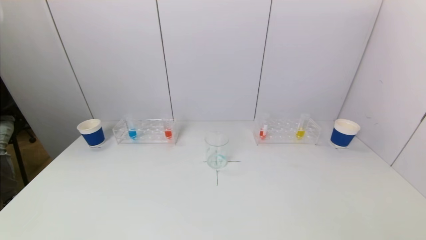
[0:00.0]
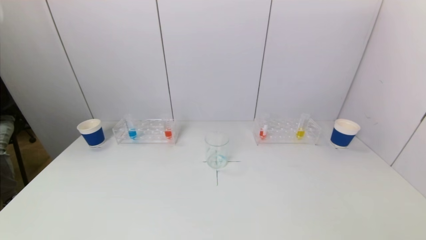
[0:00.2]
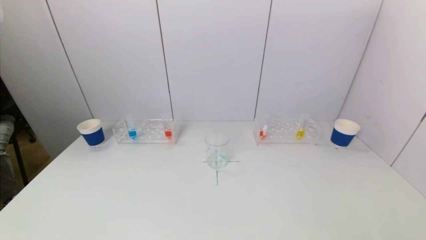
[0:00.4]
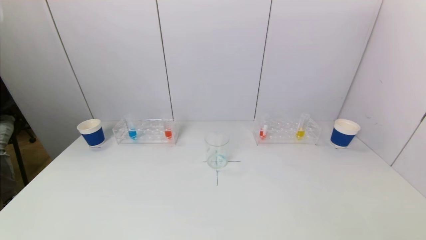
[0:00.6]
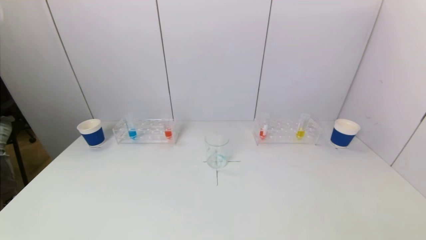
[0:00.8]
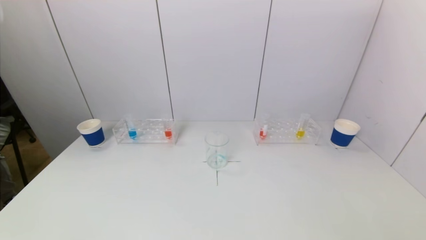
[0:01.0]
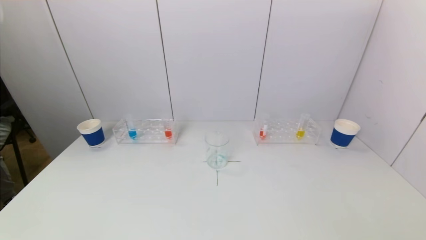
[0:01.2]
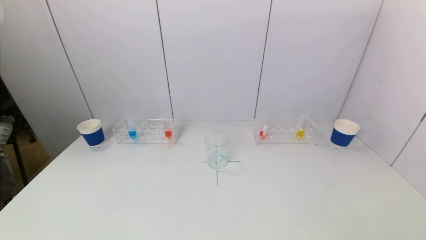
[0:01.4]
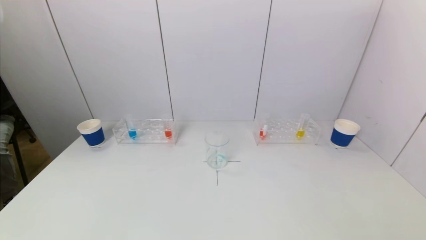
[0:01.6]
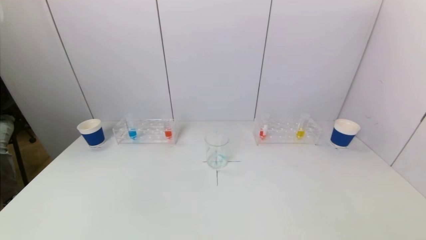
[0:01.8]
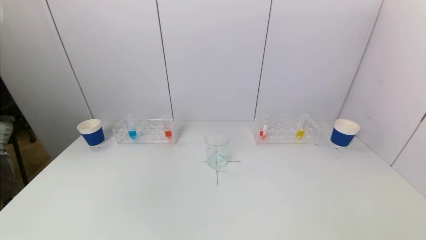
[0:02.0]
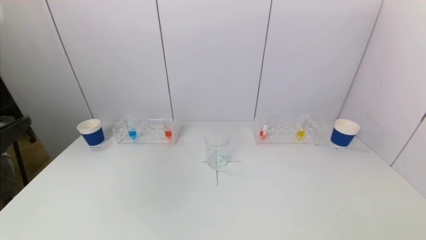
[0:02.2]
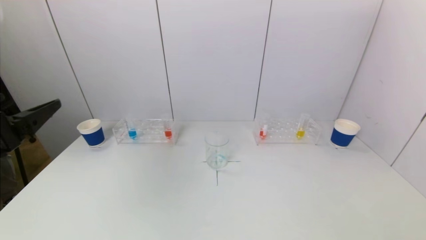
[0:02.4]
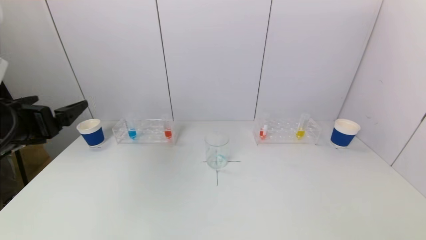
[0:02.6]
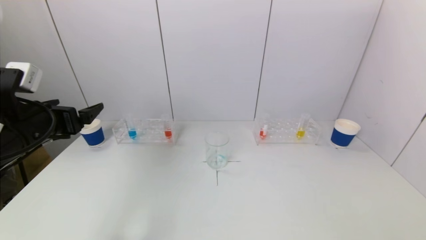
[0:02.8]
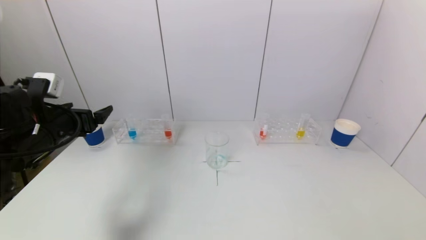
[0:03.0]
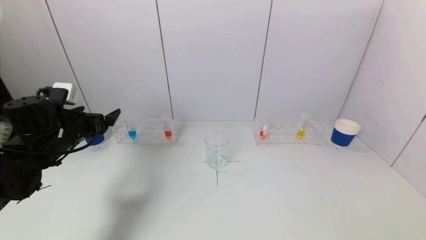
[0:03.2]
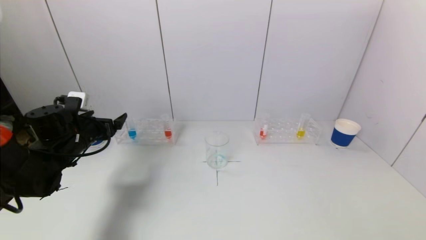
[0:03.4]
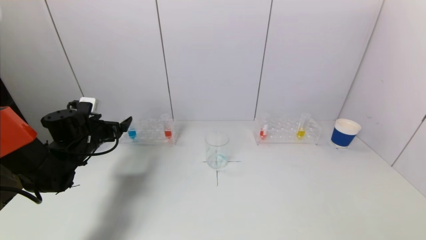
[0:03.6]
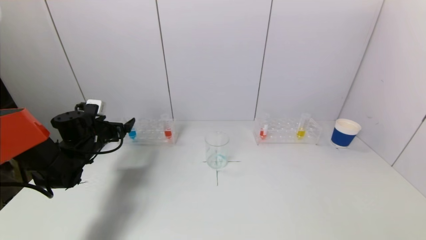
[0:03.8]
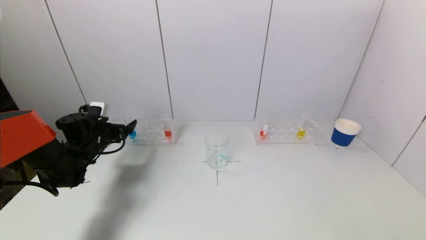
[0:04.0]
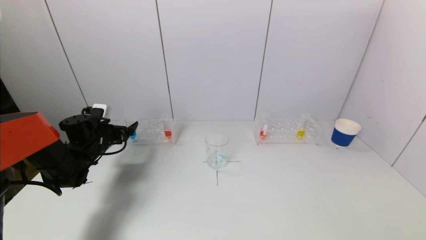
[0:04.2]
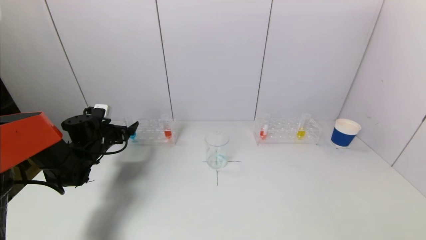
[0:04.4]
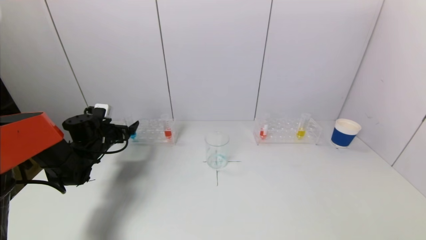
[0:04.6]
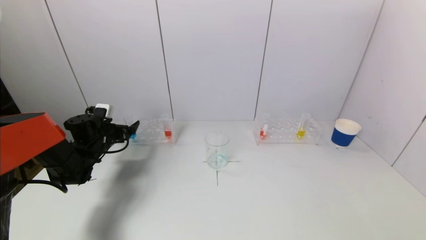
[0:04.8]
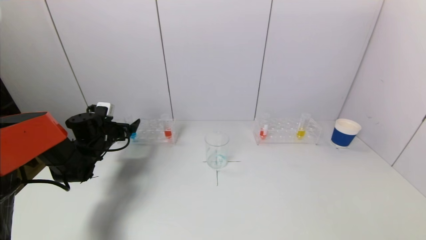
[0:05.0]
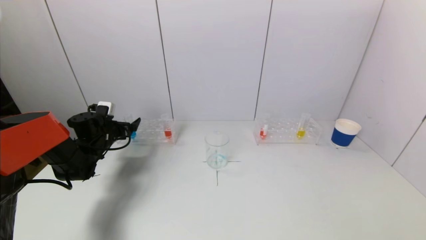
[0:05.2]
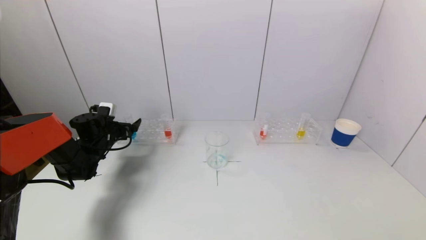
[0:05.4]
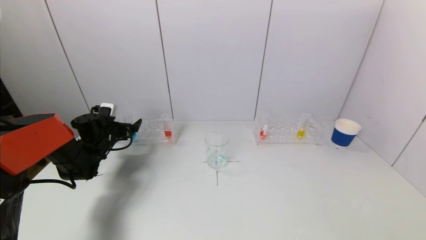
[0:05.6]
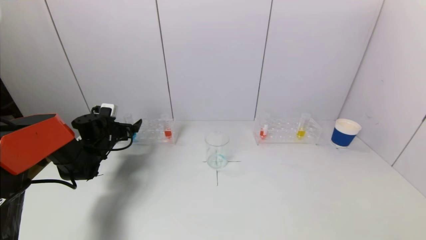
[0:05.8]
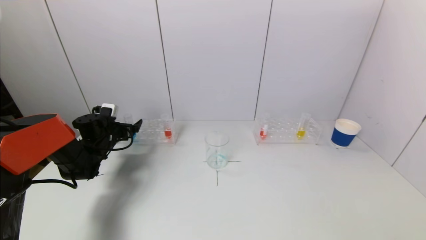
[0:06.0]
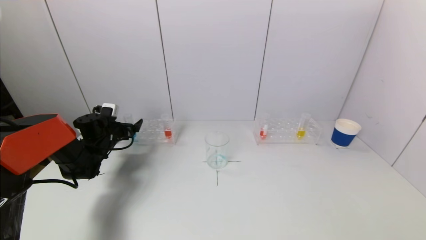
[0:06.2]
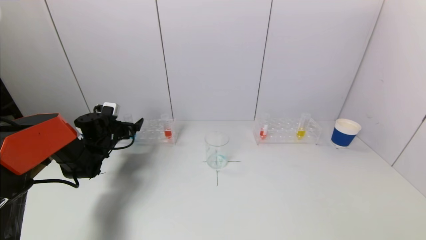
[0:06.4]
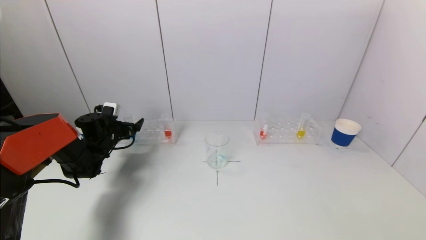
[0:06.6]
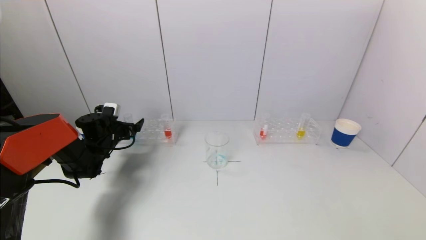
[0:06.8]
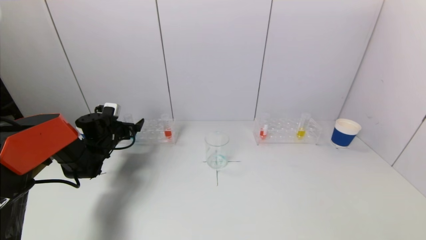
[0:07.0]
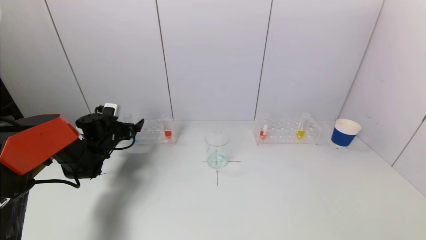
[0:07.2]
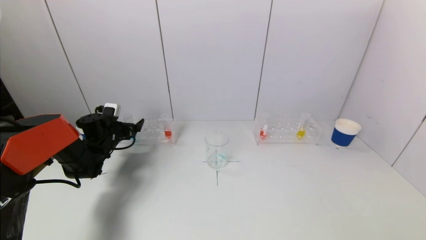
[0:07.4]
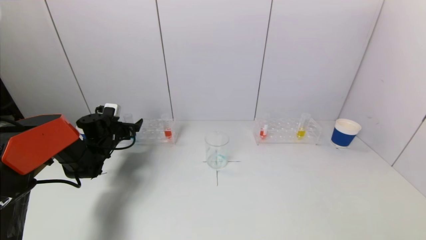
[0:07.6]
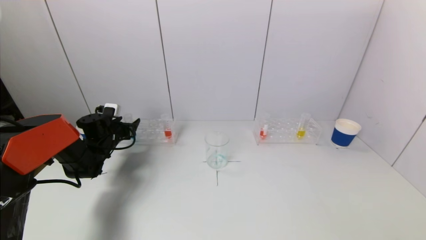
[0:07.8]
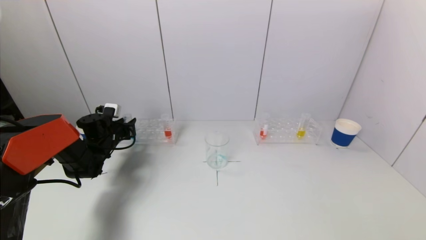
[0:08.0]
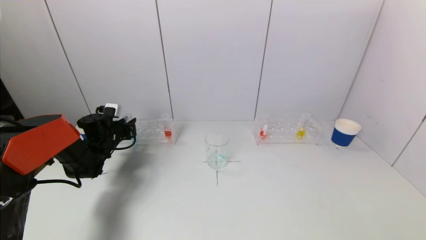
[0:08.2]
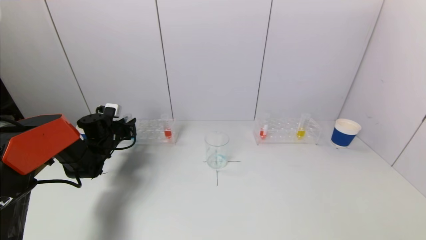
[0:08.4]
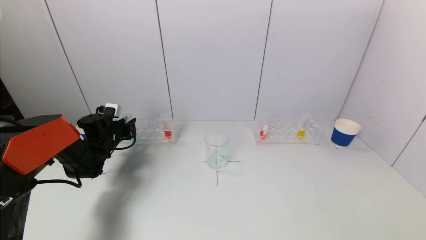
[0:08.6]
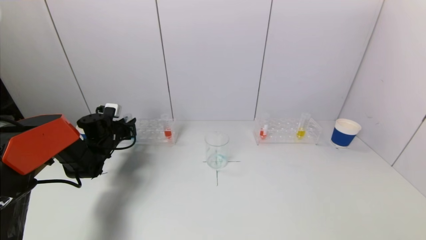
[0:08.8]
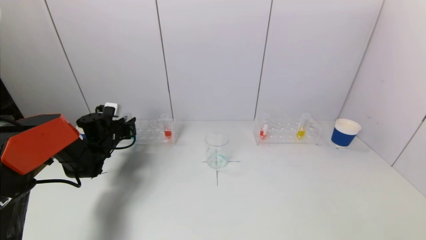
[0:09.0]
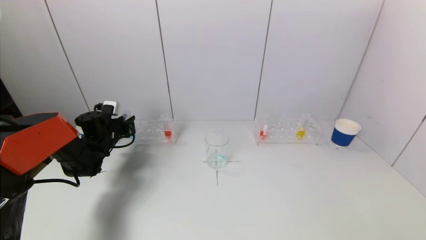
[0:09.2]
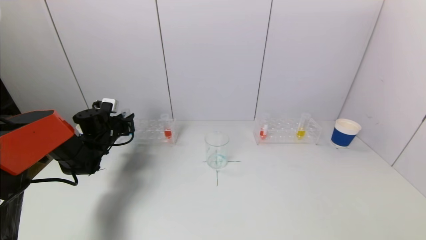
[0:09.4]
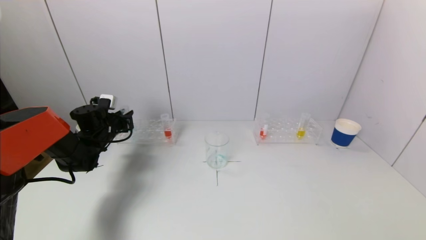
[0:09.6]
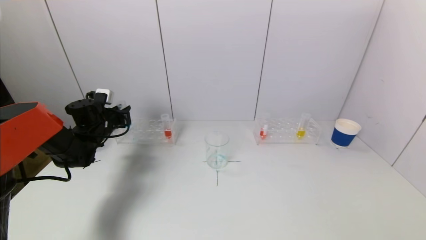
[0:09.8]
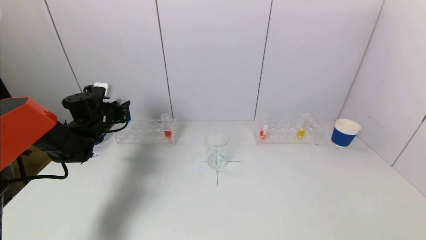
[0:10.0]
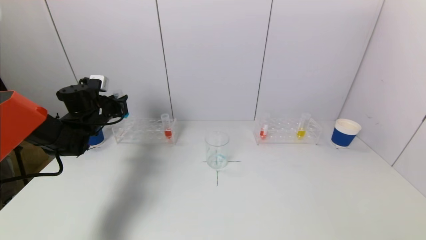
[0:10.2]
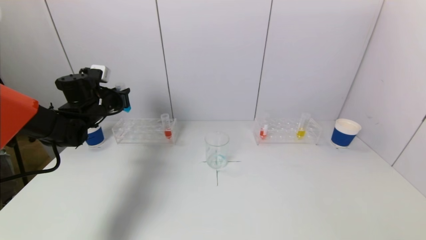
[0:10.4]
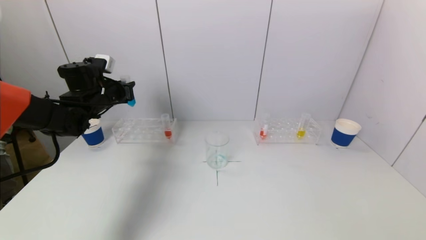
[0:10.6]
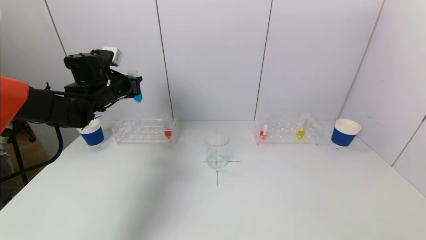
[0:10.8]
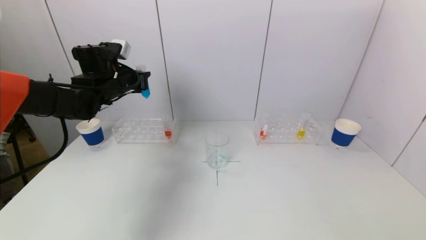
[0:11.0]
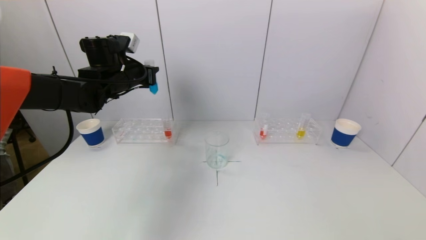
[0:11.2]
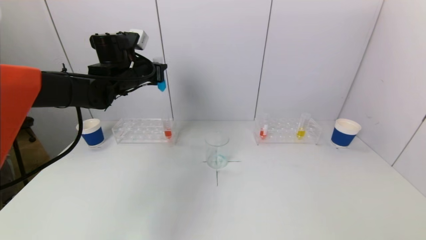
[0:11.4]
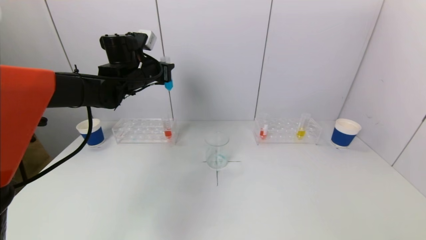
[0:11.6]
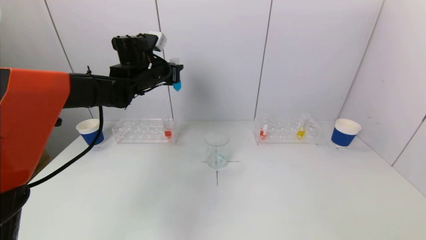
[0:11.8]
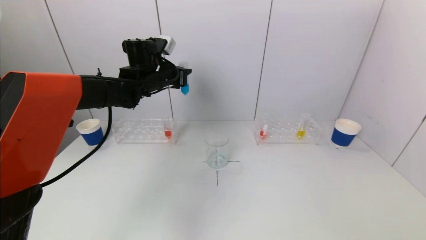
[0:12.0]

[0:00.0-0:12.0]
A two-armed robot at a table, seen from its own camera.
Task of the whole recording: pick up a test tube with pigment on left test tube rack and a test tube with pigment on right test tube rack by grippers and pour them into the beaker.
Step, 0:00.0 to 0:08.6: Grasp the blue reagent with the left gripper.
0:01.6 to 0:03.0: The left gripper travels forward by roughly 30 cm.
0:03.0 to 0:04.4: The left gripper shifts approximately 15 cm forward and downward.
0:04.4 to 0:06.0: There are only small adjustments of the grippers.
0:06.0 to 0:07.6: Neither gripper changes place.
0:09.0 to 0:10.4: The left gripper travels upward by roughly 10 cm.
0:10.4 to 0:12.0: The left gripper heads to the right and upward, covering approximately 15 cm.

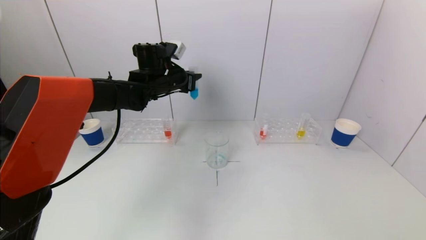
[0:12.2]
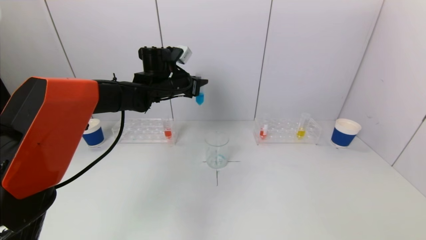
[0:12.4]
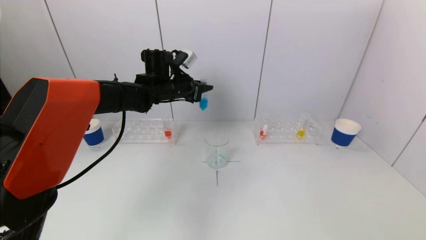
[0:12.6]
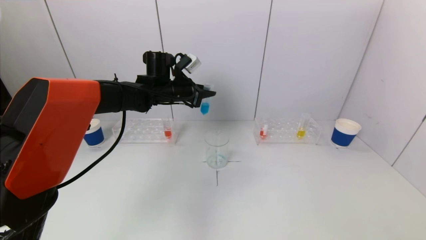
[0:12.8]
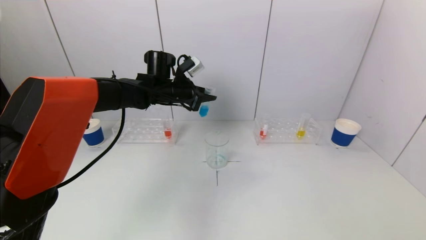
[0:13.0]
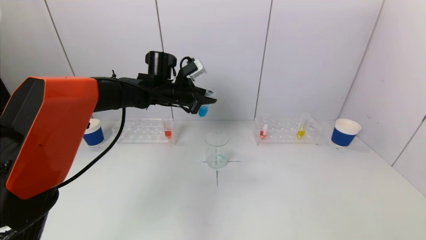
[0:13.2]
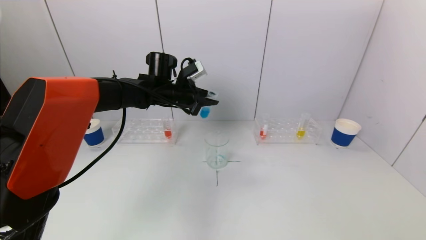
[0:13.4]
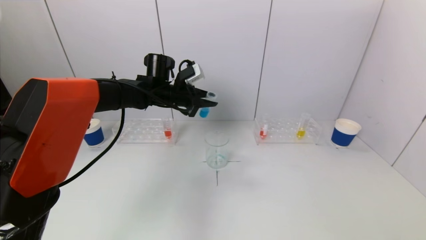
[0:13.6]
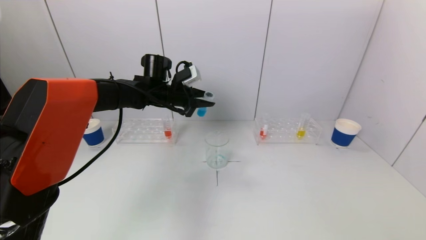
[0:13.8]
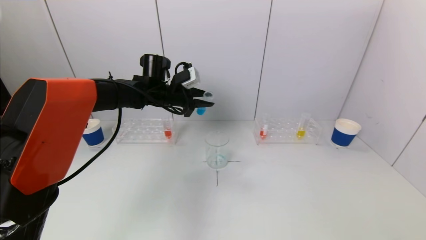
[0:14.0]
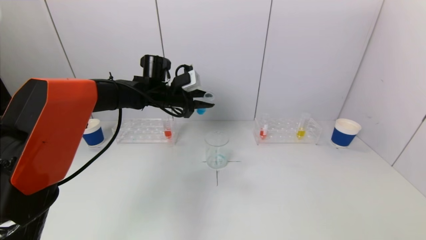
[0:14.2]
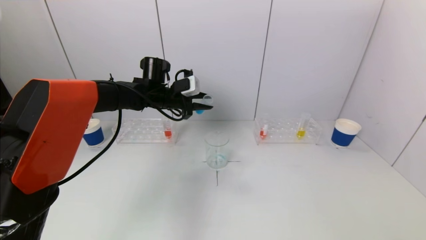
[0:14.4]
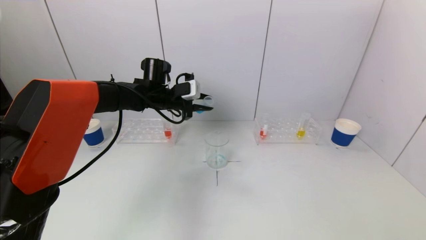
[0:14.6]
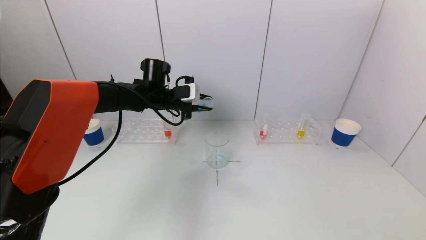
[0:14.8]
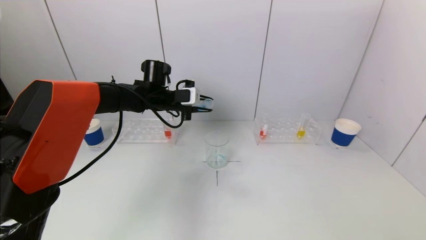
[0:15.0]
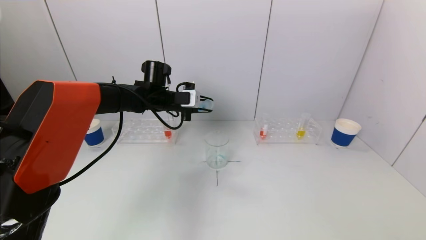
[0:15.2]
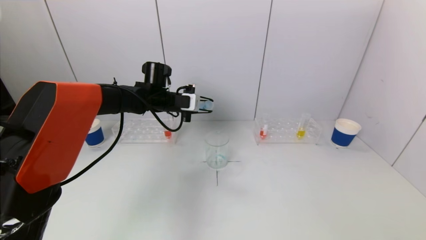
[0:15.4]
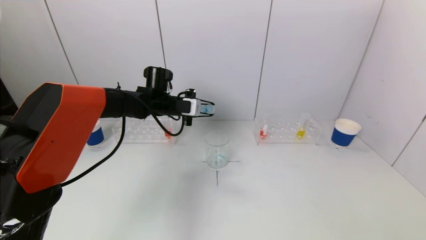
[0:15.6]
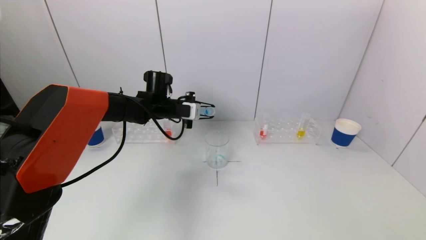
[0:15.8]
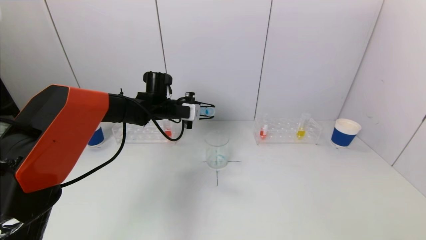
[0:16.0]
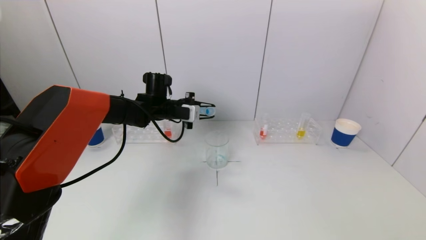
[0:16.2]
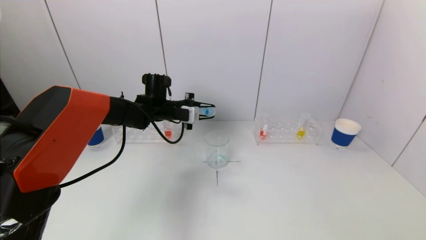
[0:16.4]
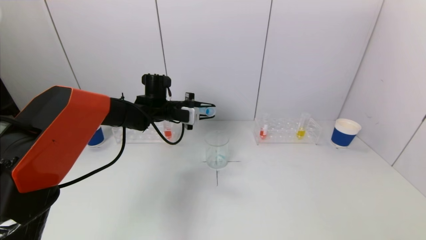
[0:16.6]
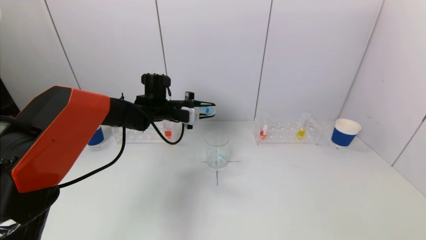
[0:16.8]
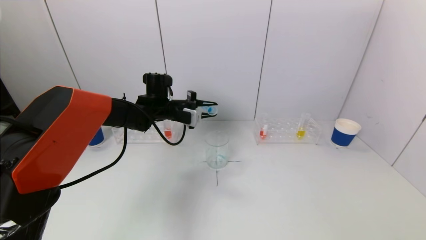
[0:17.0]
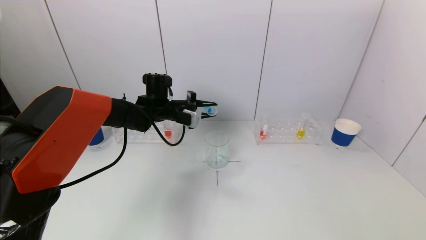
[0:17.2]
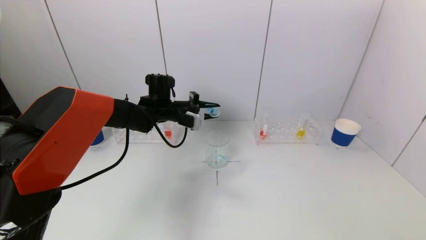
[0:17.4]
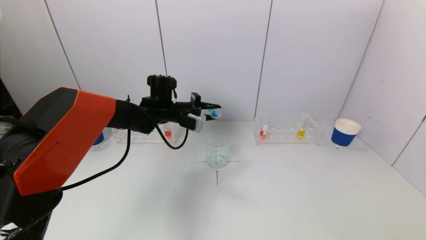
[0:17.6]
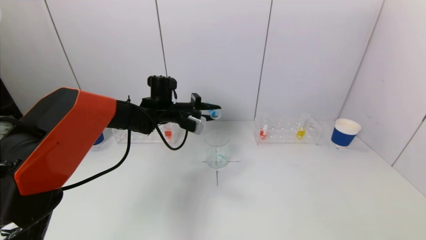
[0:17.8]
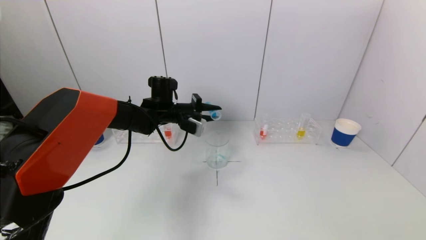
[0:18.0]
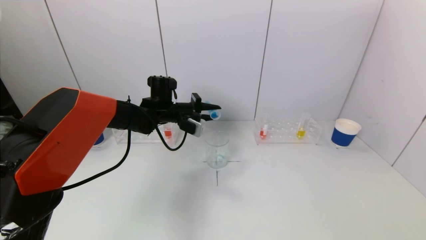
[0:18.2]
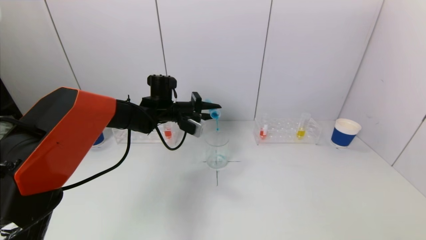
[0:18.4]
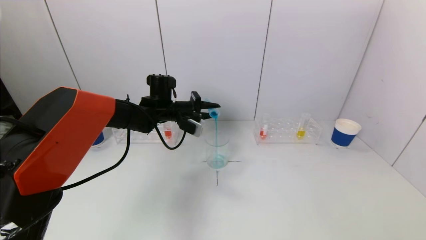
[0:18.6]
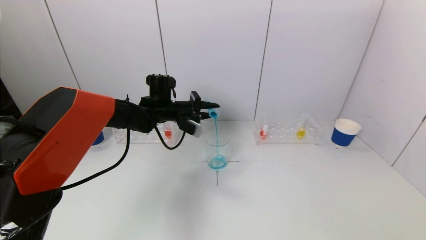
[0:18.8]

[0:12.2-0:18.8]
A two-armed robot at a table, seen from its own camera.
Task of the whole recording: pick up a test tube with pigment on left test tube rack and a test tube with pigment on right test tube rack by grippers and pour them into the beaker.
0:15.4 to 0:17.2: The grippers stay close to where they were, moving slightly.
0:17.2 to 0:18.8: The grippers make only small movements.
